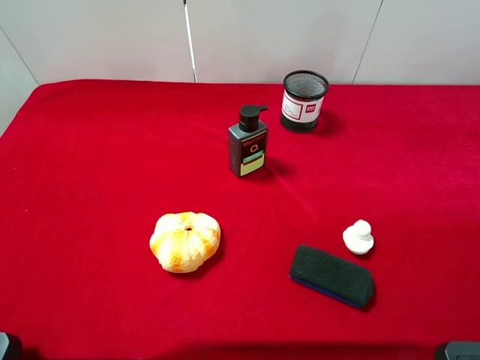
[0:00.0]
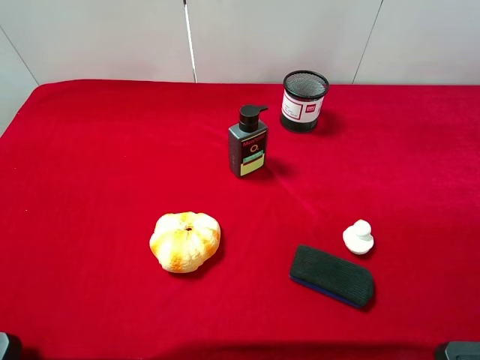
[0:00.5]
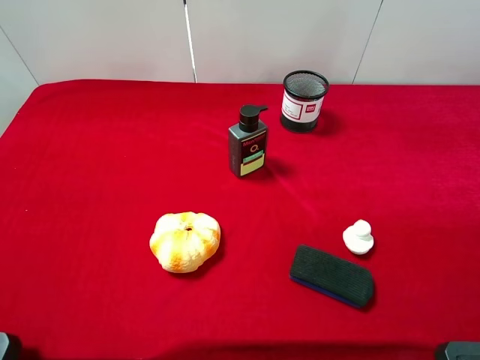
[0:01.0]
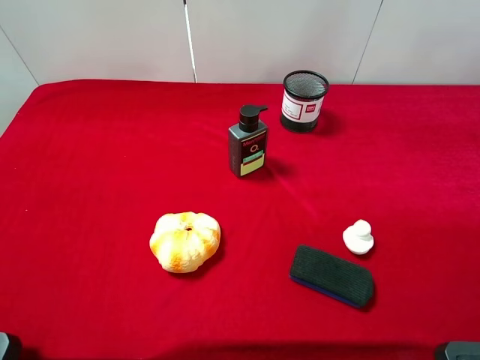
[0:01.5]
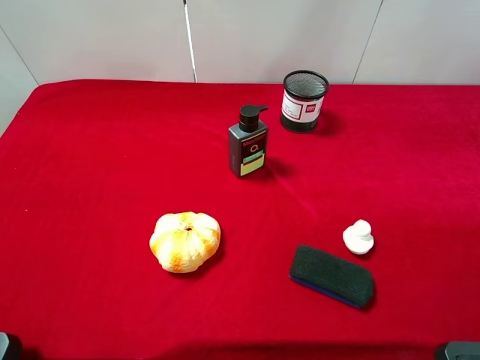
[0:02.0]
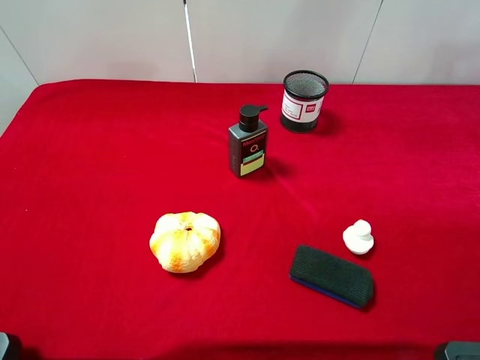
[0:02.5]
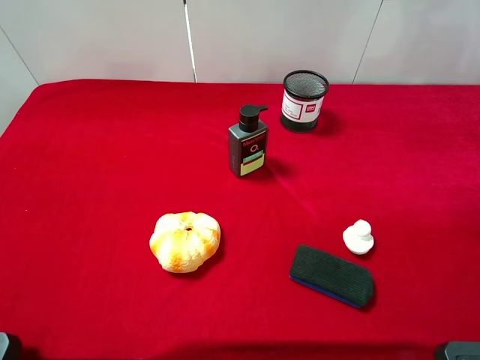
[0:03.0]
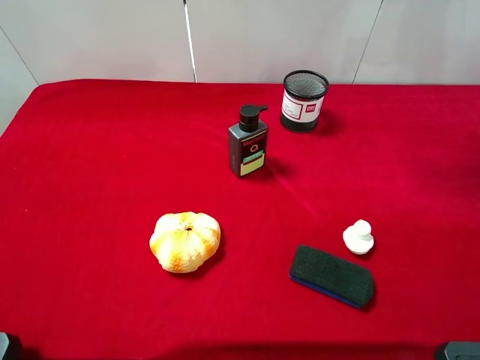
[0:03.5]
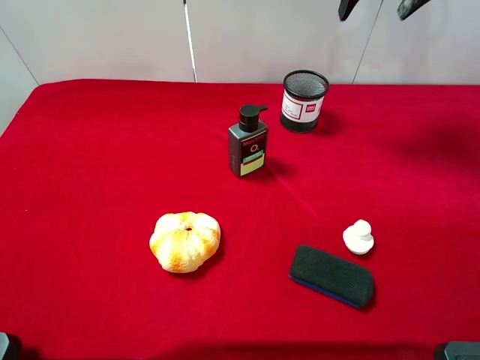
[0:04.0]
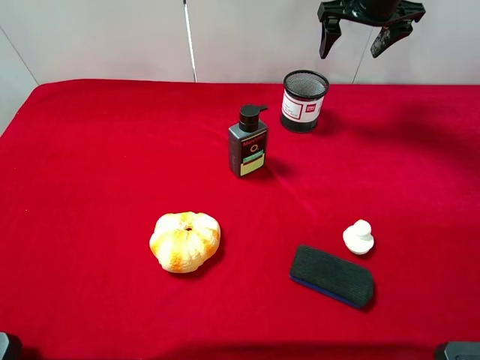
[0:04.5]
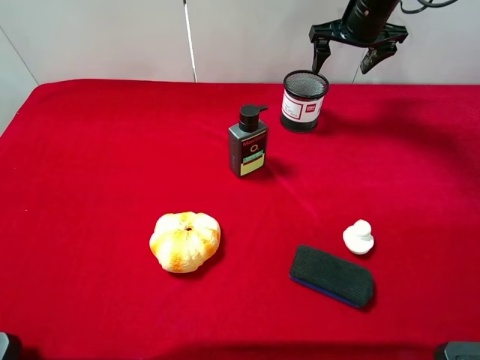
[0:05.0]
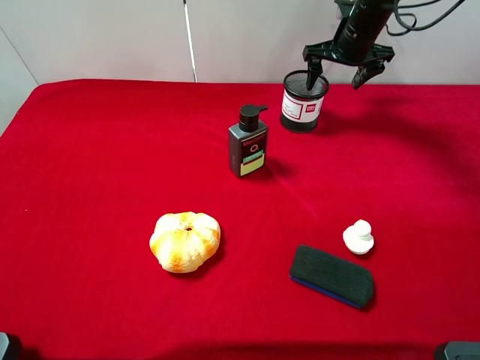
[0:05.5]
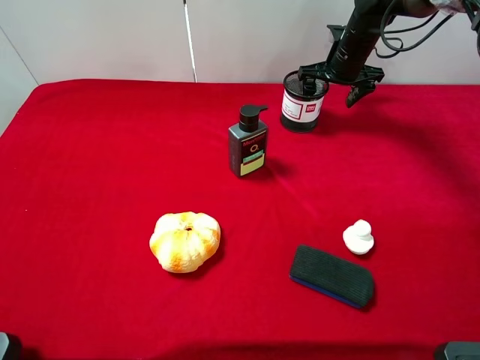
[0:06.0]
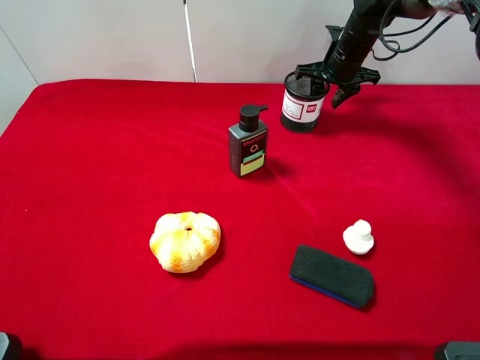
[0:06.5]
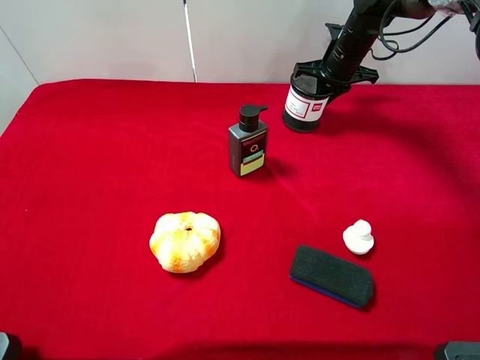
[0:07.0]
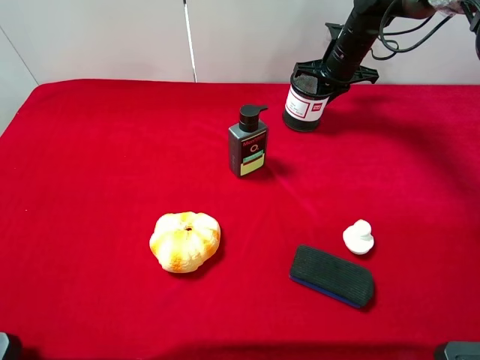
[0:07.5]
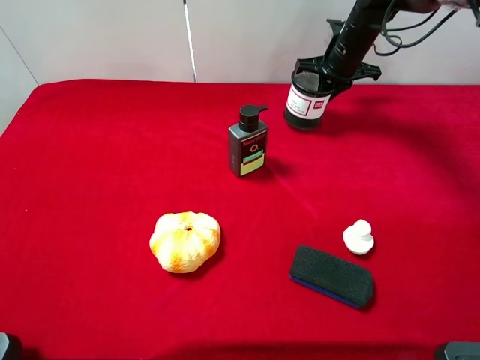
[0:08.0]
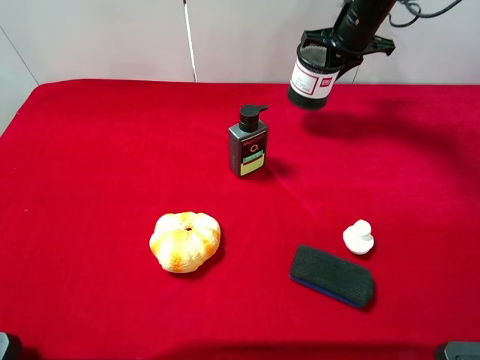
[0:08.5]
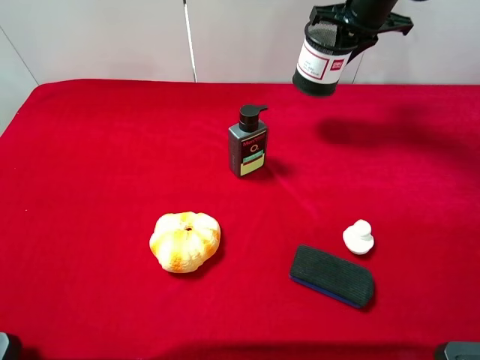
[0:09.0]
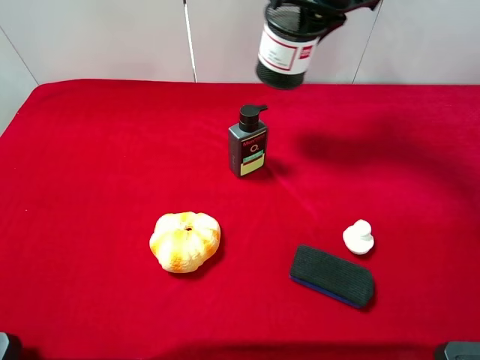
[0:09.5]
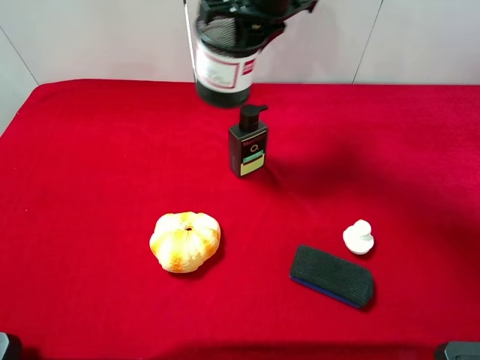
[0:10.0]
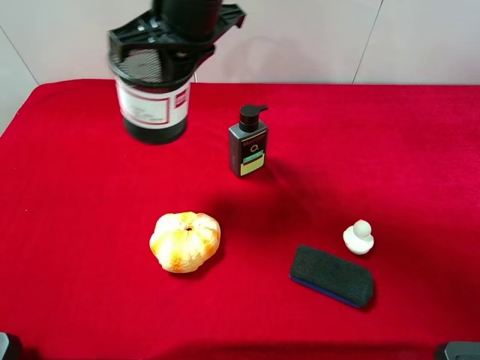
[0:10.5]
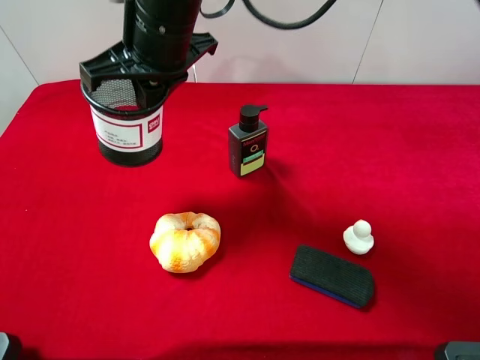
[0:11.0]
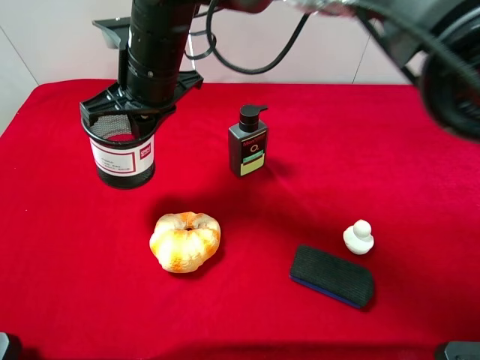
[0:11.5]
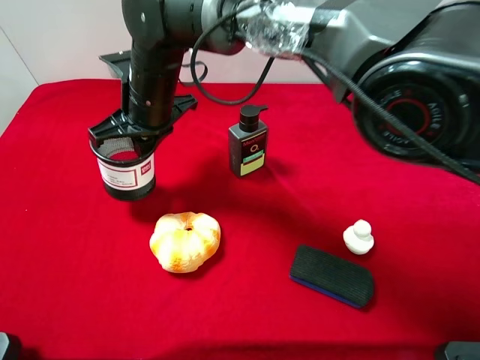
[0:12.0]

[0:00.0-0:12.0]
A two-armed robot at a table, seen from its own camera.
Task of the whole recording: the gripper move the object.
Step, 0.0 to 7.5 s: Grasp the pen container with the right gripper.
2.0 to 4.0 s: The right gripper travels forward by some 30 cm.
4.0 to 6.0 s: The right gripper travels downward by roughly 20 cm.
6.0 to 8.0 s: The right gripper closes its fingers.
8.0 to 10.0 s: The right gripper heads to the left, upward and backward, covering some 25 cm.
10.0 to 12.0 s: The right gripper heads to the left, downward and backward, covering approximately 20 cm.

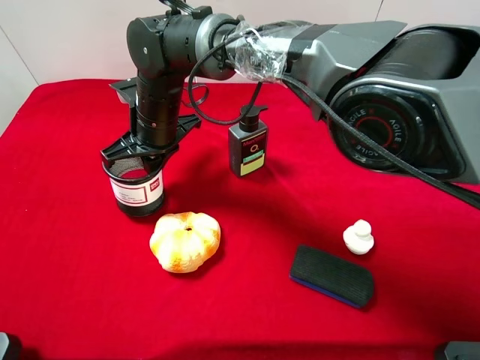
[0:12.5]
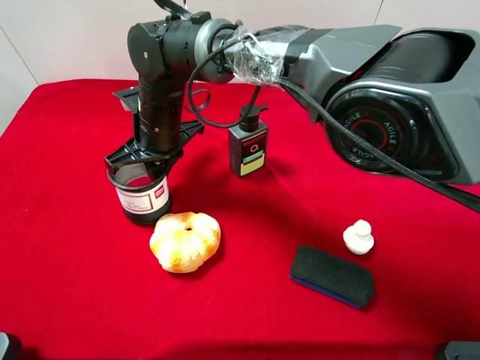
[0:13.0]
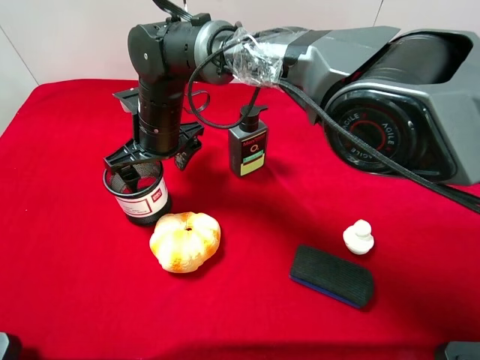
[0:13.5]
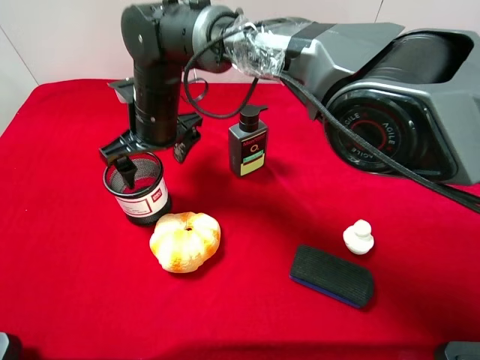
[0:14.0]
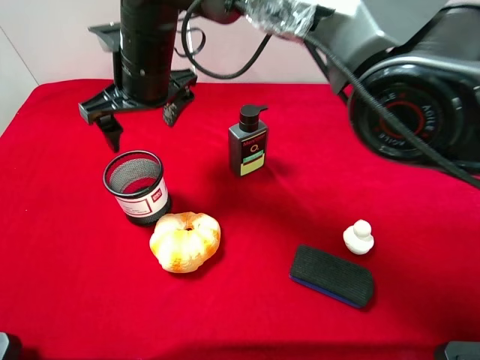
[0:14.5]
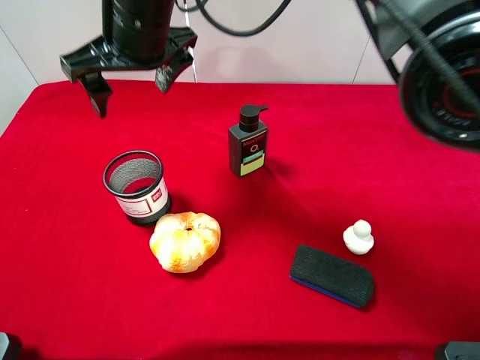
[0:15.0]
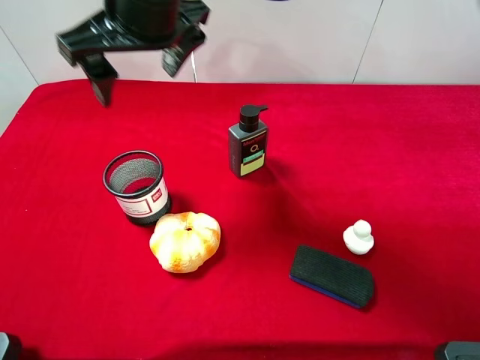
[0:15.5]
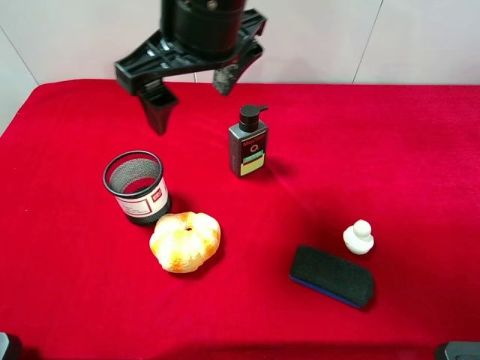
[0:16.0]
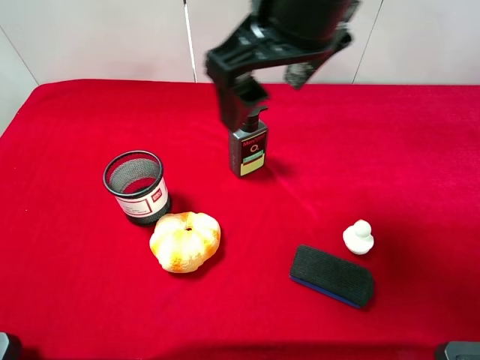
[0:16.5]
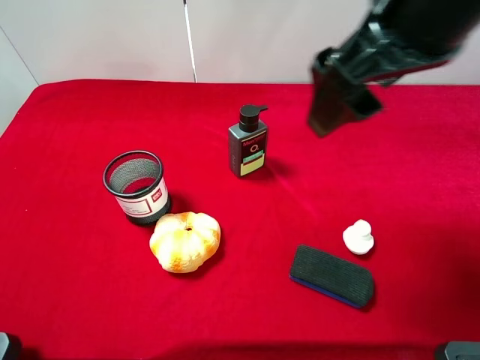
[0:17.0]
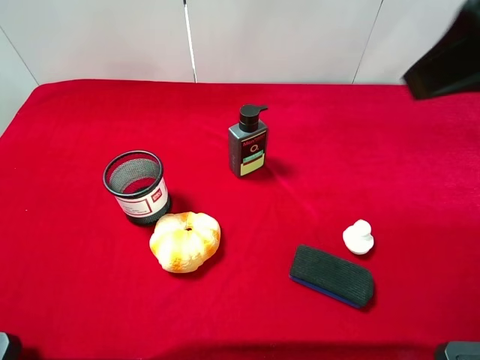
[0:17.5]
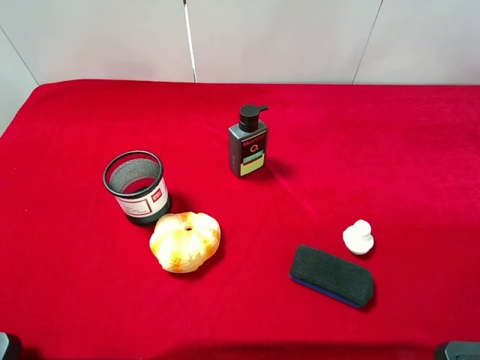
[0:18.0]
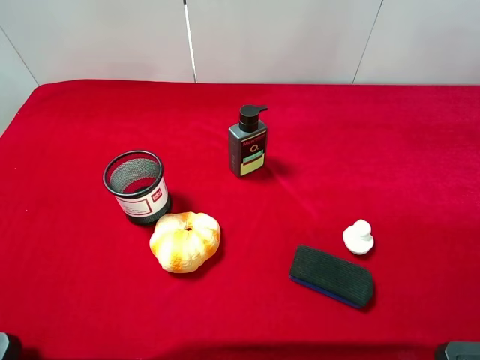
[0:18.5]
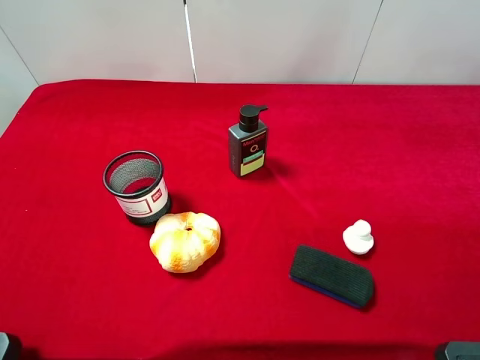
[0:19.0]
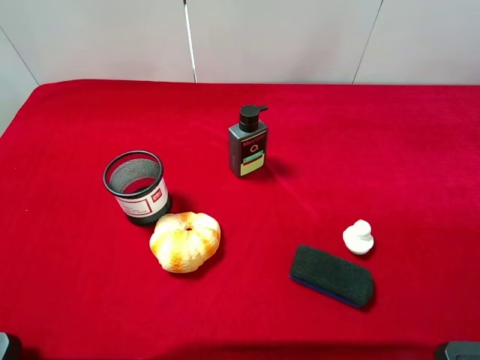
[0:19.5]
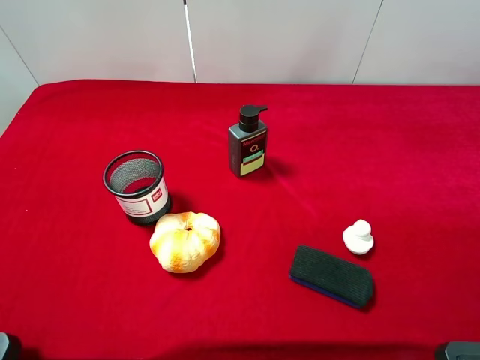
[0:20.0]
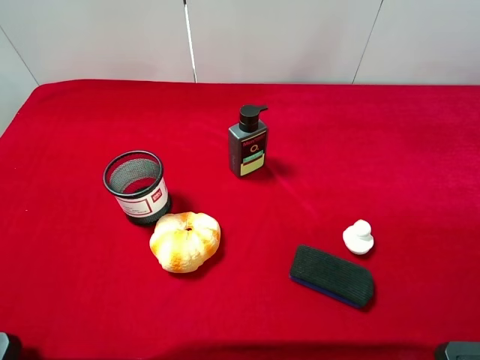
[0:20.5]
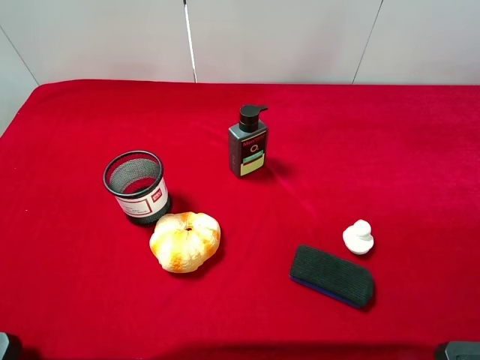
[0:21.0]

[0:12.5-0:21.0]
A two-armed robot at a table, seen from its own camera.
Task of the whole recording: the gripper move the object.
12.5 to 14.5 s: The right gripper shifts approximately 10 cm upward, and opens its fingers.
14.5 to 16.5 s: The right gripper travels to the right, upward and backward by some 25 cm.
16.5 to 19.0 s: The right gripper goes roughly 30 cm to the right and backward.

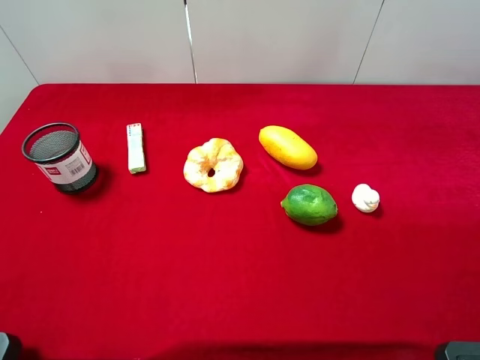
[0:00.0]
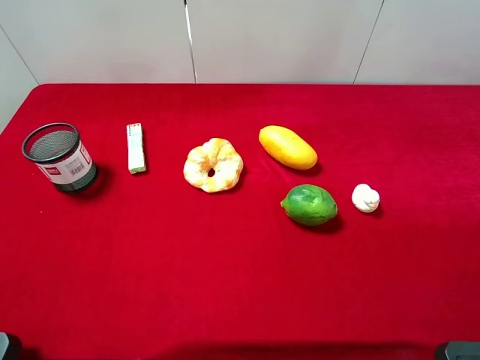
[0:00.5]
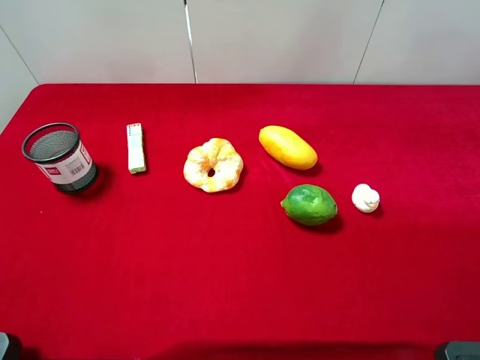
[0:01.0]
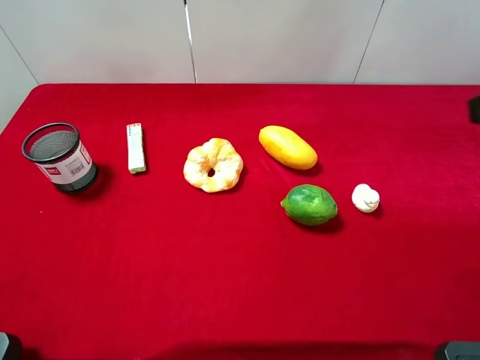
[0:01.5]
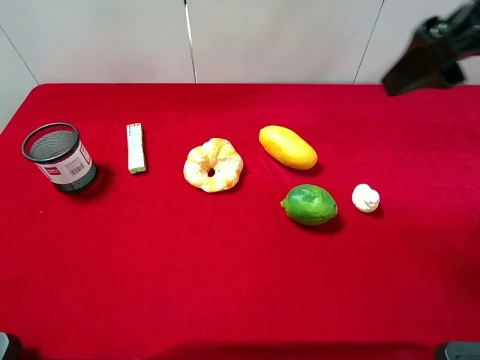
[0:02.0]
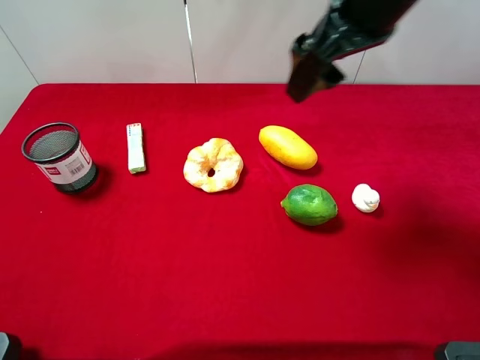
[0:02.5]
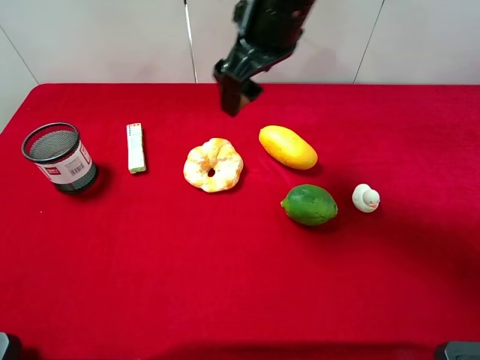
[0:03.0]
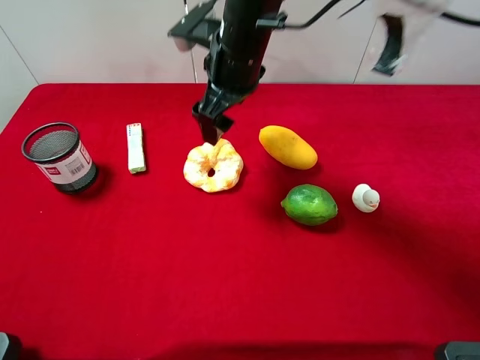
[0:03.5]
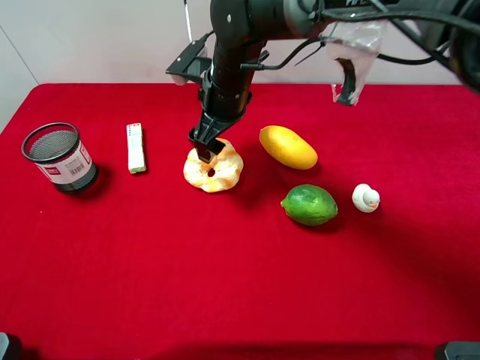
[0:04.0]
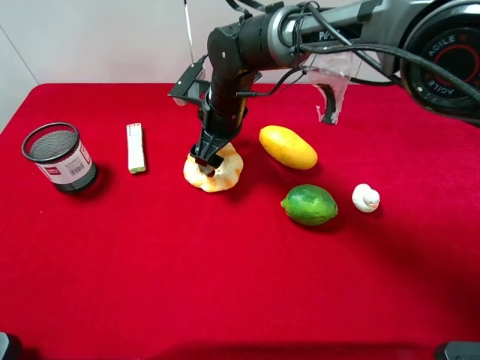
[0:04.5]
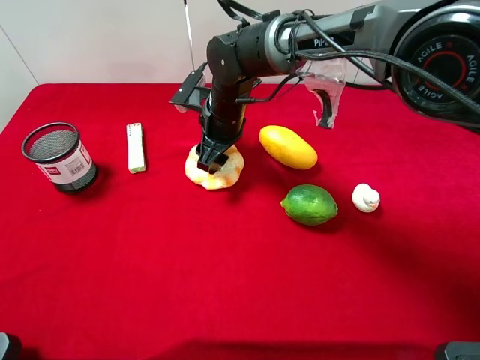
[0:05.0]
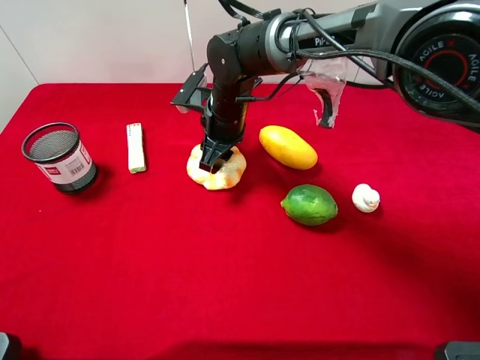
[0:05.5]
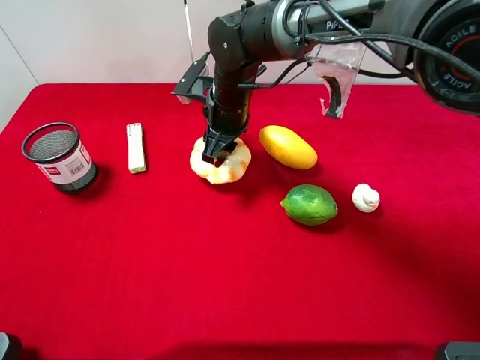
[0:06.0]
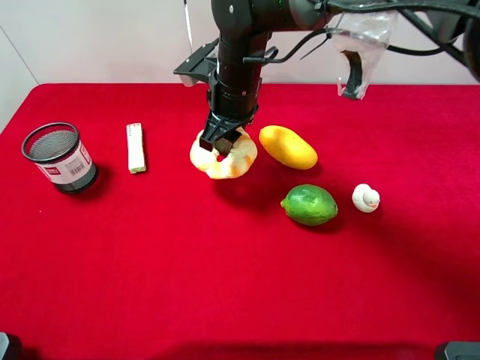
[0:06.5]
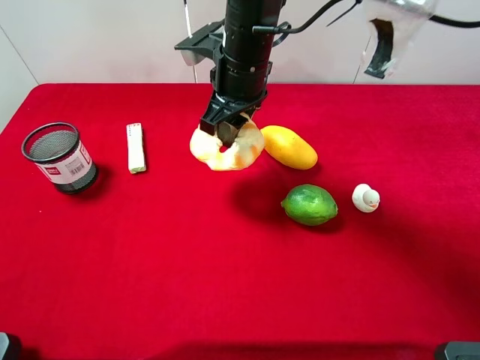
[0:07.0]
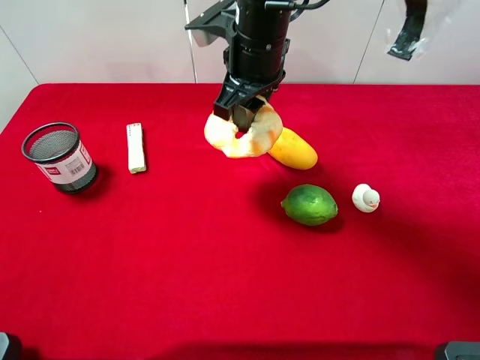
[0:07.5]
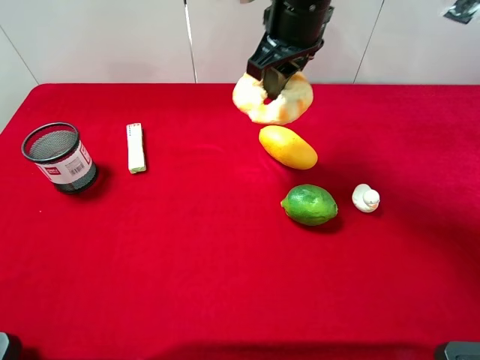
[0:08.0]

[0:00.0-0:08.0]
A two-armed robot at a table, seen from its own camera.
Task of the whole recording: the gripper move the object.
Step, 0.0 to 5.0 s: Grasp the hollow ring bread with the right gripper.
0.0 to 2.0 s: The right gripper is displaced forward and to the left by some 25 cm.
2.0 to 4.0 s: The right gripper moves to the left, downward and forward, roughly 35 cm.
4.0 to 6.0 s: The right gripper closes up.
6.0 to 8.0 s: The right gripper moves upward and to the right, approximately 15 cm.
